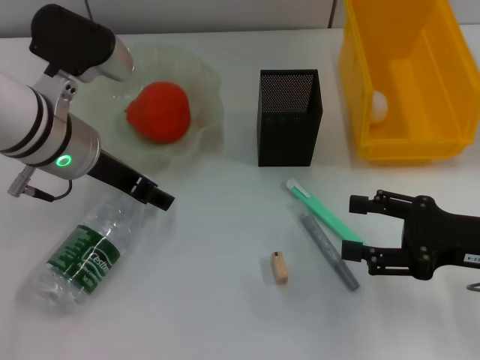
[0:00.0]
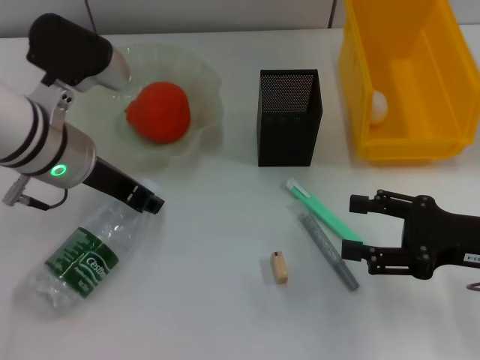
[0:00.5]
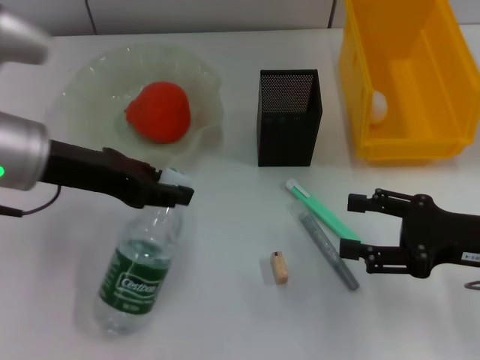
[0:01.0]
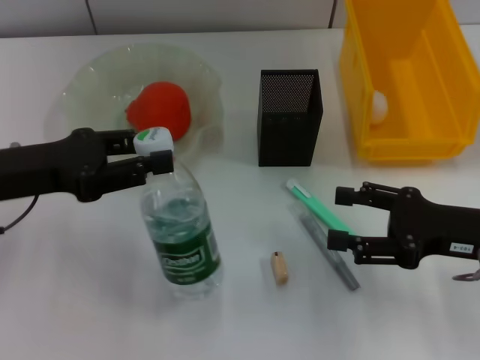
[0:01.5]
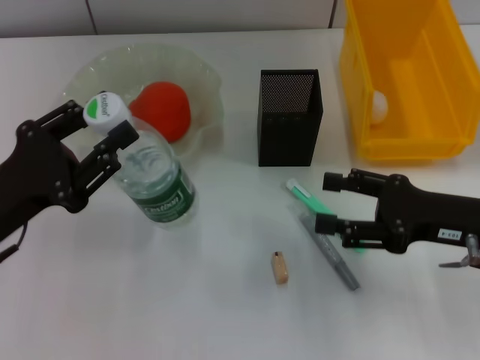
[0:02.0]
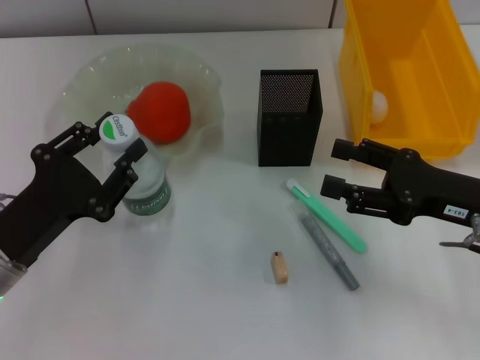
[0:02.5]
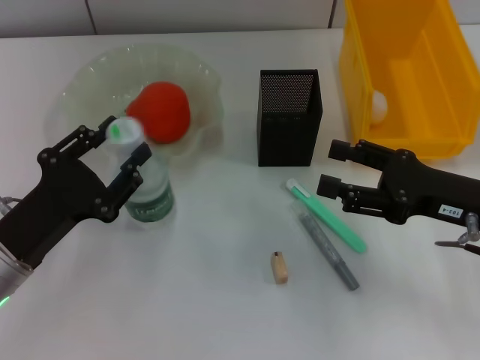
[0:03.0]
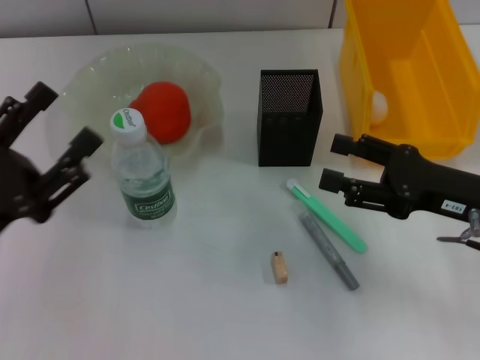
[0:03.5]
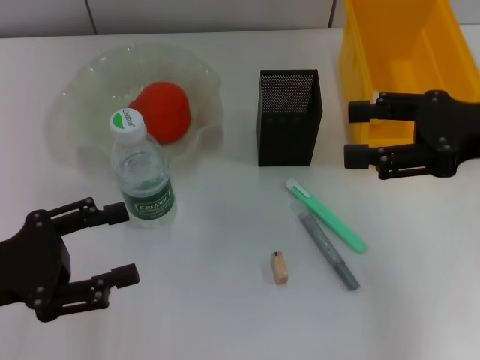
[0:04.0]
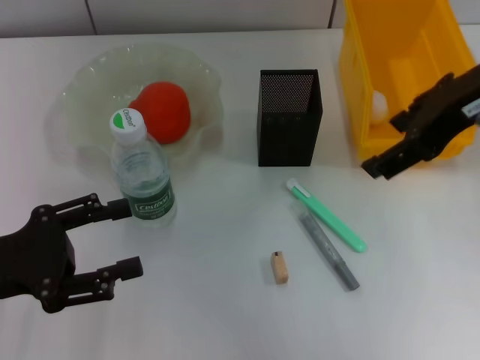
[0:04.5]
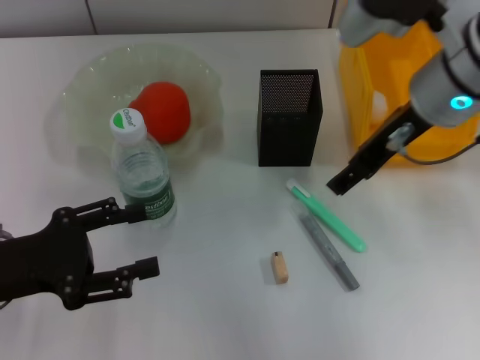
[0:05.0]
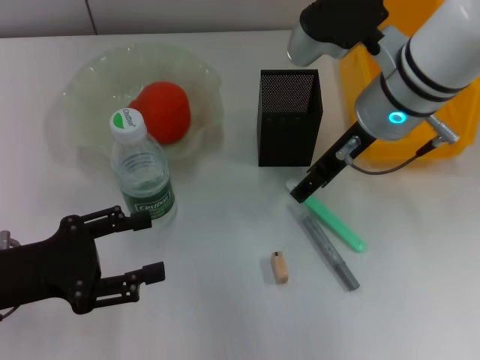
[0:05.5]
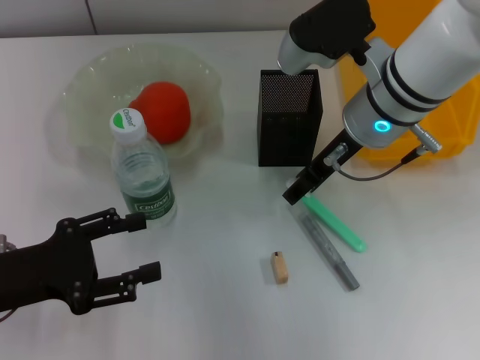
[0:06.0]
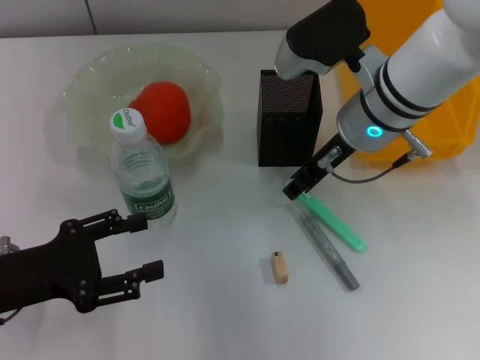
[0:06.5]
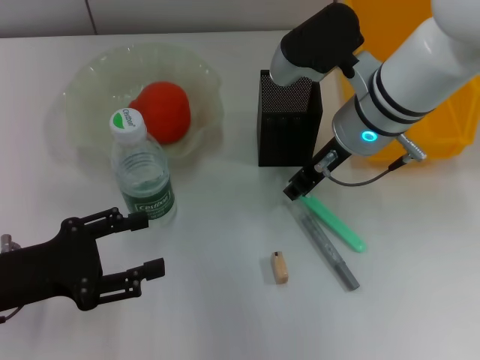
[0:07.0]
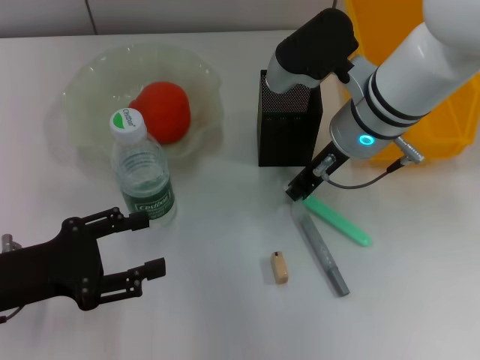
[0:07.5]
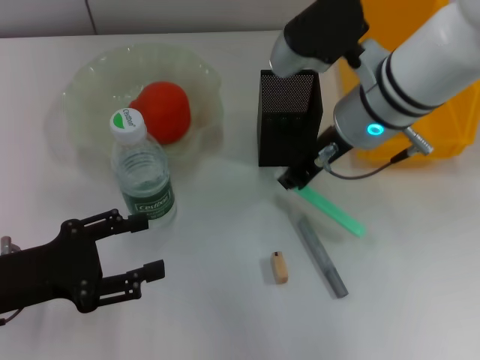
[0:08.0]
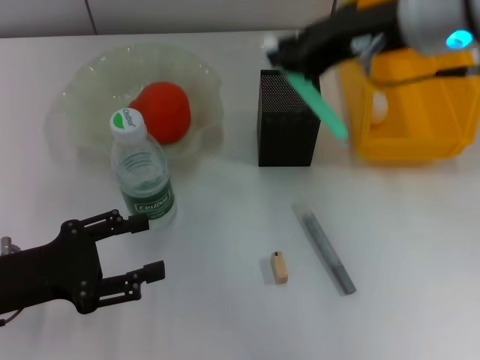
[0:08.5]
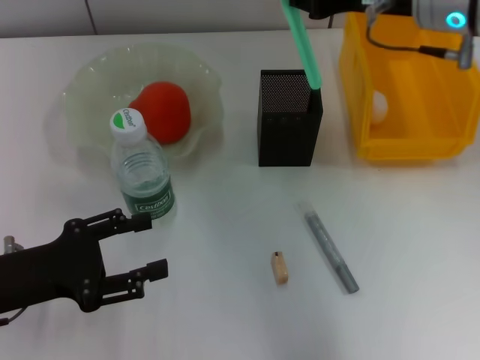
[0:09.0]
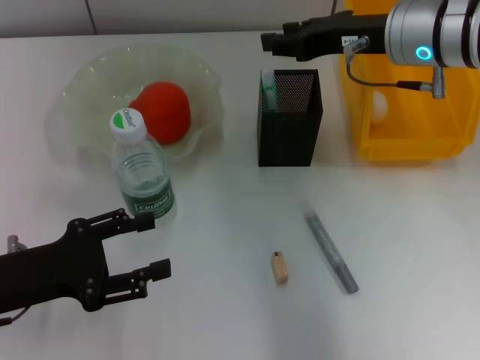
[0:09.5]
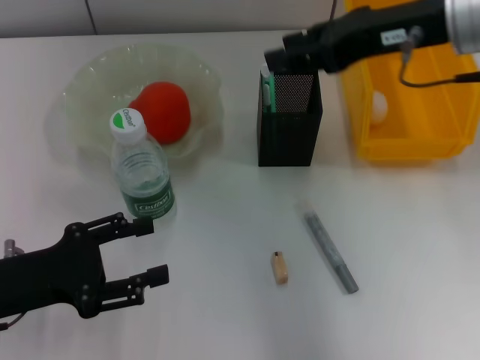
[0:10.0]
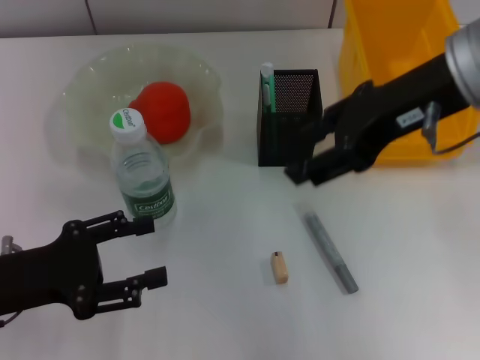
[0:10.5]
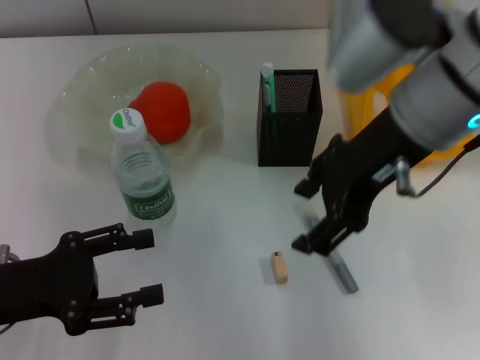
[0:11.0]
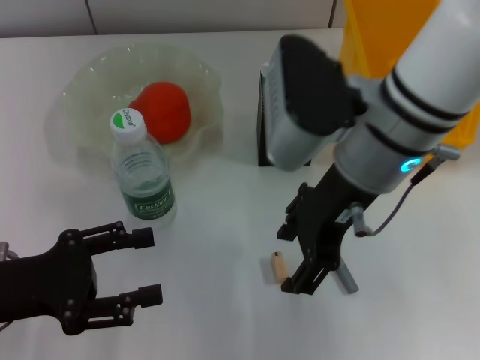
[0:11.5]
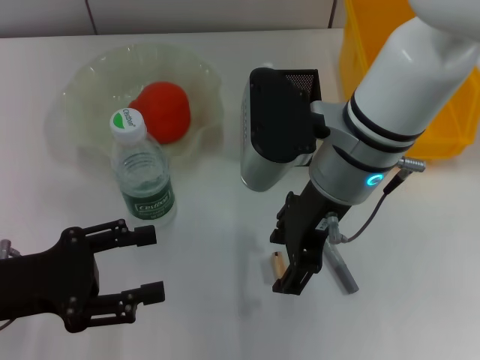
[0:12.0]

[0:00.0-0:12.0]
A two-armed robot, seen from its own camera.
Step, 0:00.5 to 0:03.0: Place the water bottle on the table with the left hand.
Step, 0:03.5 to 0:07.5: Grab the blue utility knife with the right hand.
Step, 0:08.0 to 0:09.5: Place the blue utility knife into the pen holder with the right hand.
0:00.0 to 0:02.0: The left gripper shifts some 15 cm backward, to the left and downward, and closes its fingers.
0:02.0 to 0:04.0: The right gripper travels upward by about 10 cm. The left gripper opens its fingers.
0:04.0 to 0:06.0: The right gripper shifts roughly 15 cm to the left and forward.
0:06.0 to 0:08.0: The right gripper closes up.
0:08.0 to 0:10.0: The right gripper goes up and down, about 10 cm each way, reversing 2 times, and opens its fingers.
0:10.0 to 0:12.0: The right gripper is displaced to the left and downward by approximately 15 cm.

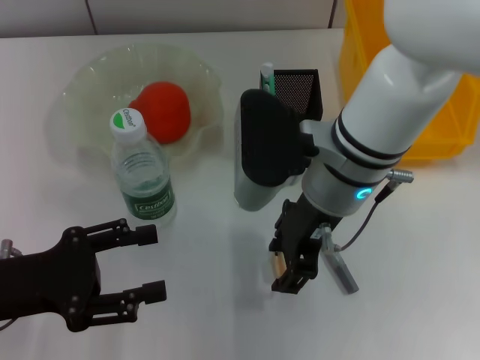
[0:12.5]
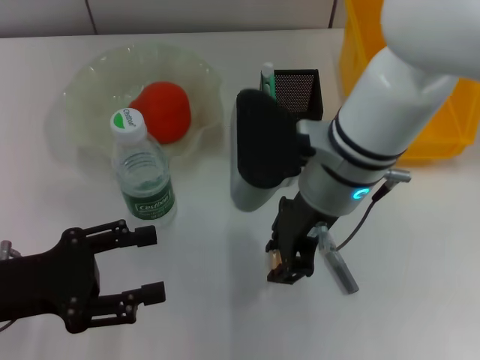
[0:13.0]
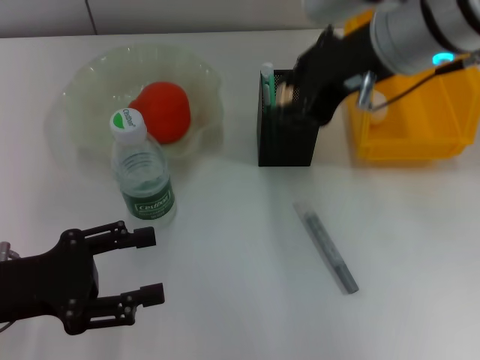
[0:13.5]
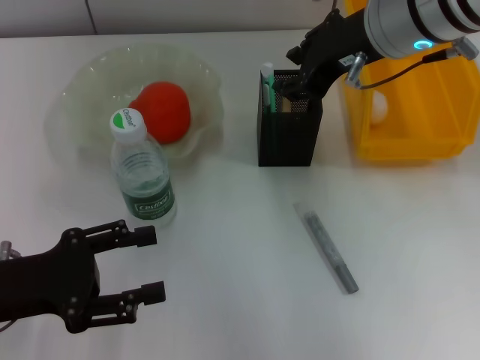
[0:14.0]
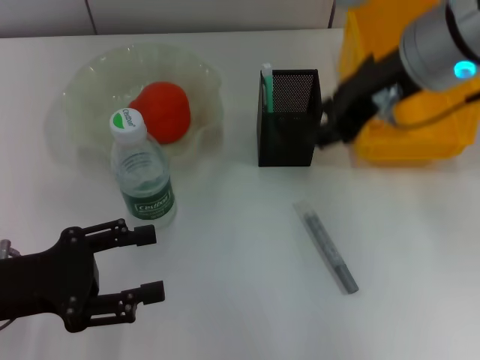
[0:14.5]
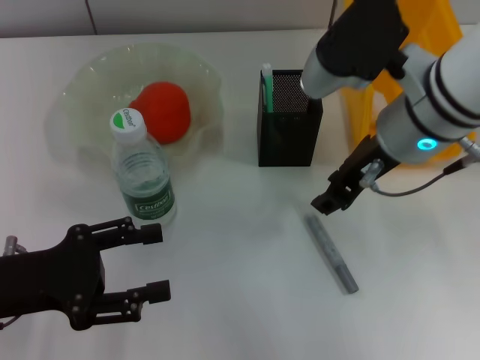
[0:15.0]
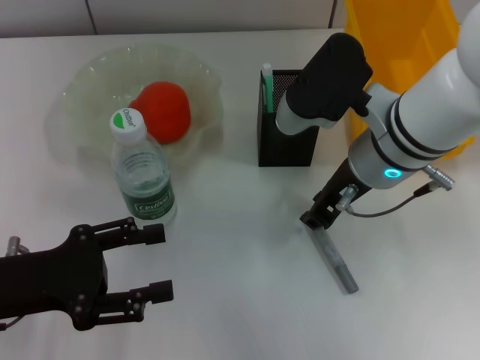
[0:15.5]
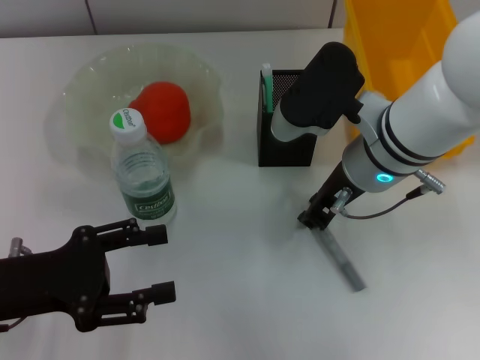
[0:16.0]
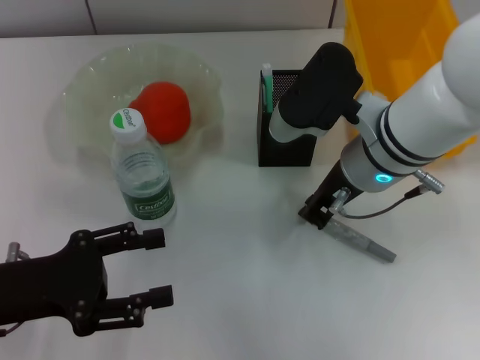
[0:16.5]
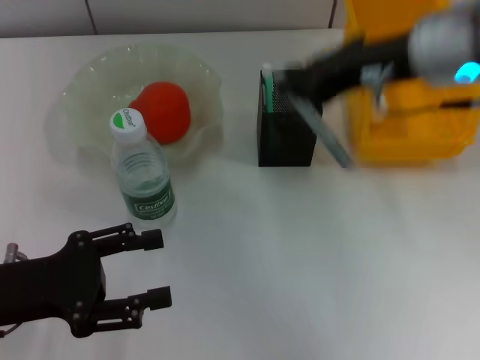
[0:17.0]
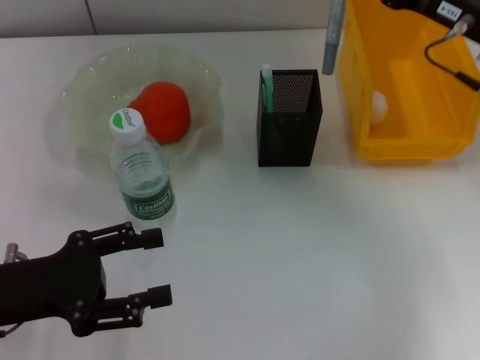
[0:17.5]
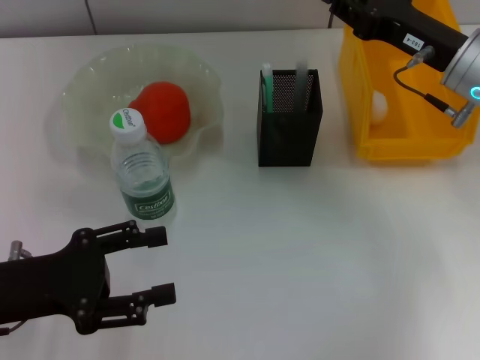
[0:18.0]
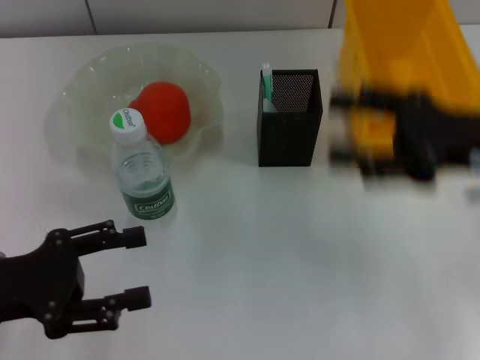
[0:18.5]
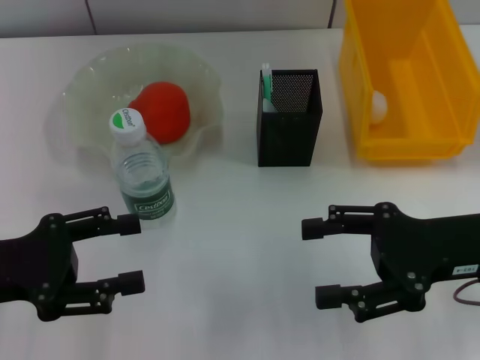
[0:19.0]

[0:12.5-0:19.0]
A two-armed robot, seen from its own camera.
Step, 0:13.0 to 0:14.0: Put the eraser into the pen holder with the right hand.
Step, 0:14.5 to 0:16.0: Grab the gray glue with the right hand.
Step, 0:16.5 to 0:18.0: Place the gray glue into the pen holder with the right hand.
0:12.5 to 0:14.5: The right gripper goes some 10 cm upward and to the right.
0:14.5 to 0:17.0: The right gripper reaches some 10 cm downward, then returns, and closes up.
0:17.0 to 0:19.0: The right gripper is displaced downward, to the right and backward by some 15 cm, and opens its fingers.
